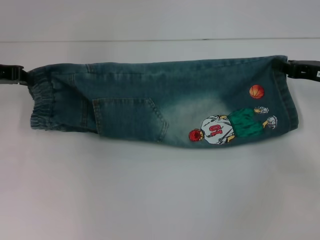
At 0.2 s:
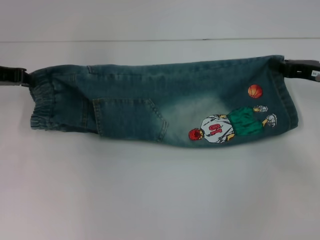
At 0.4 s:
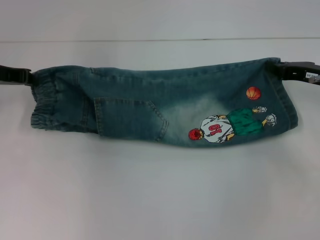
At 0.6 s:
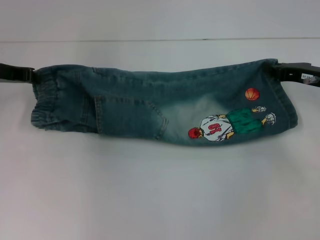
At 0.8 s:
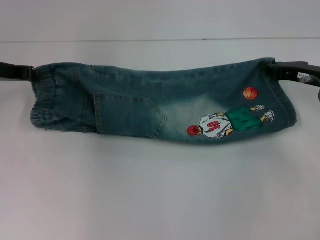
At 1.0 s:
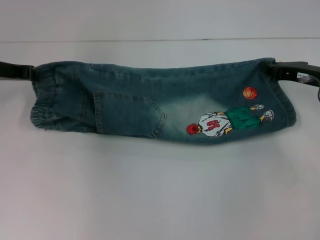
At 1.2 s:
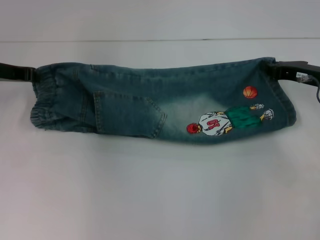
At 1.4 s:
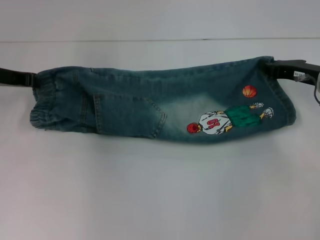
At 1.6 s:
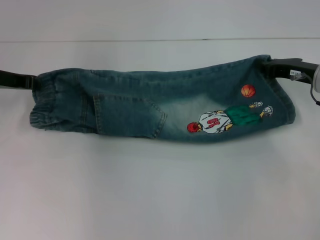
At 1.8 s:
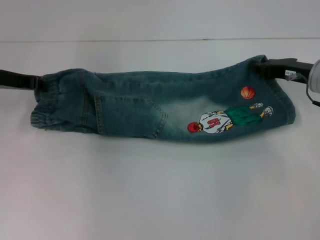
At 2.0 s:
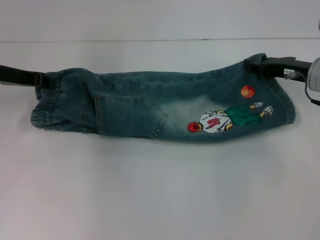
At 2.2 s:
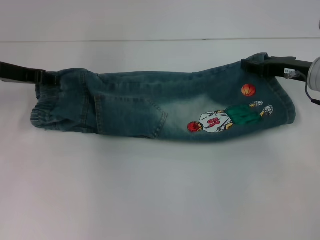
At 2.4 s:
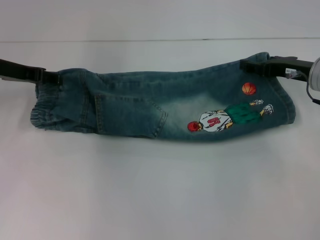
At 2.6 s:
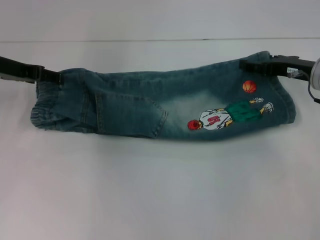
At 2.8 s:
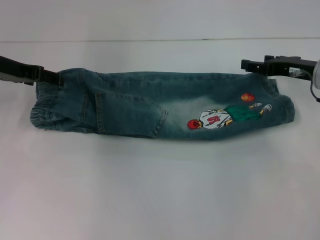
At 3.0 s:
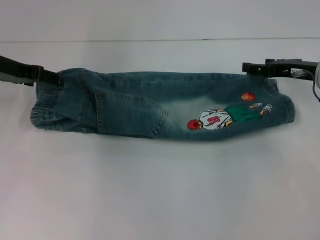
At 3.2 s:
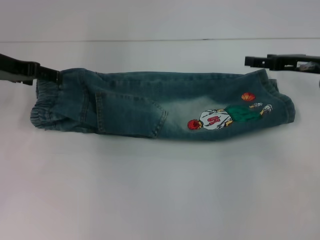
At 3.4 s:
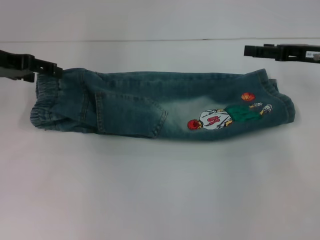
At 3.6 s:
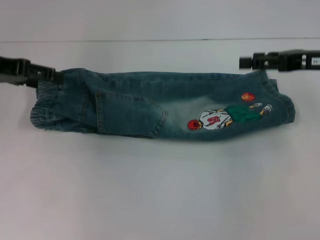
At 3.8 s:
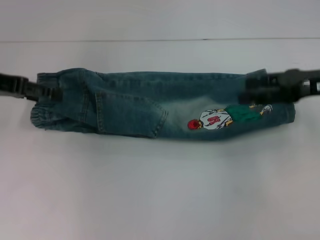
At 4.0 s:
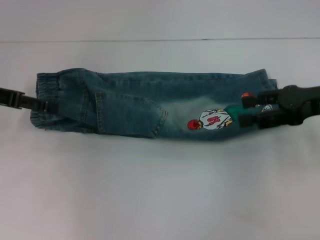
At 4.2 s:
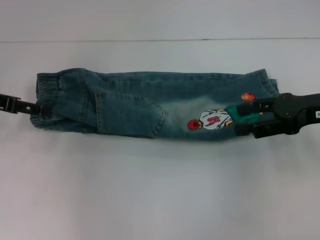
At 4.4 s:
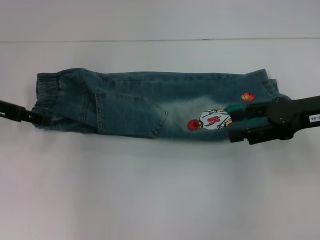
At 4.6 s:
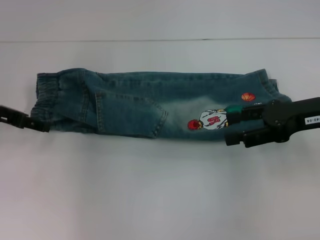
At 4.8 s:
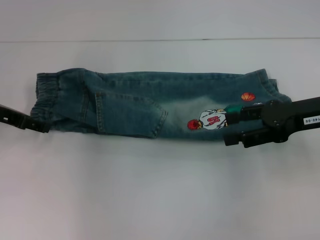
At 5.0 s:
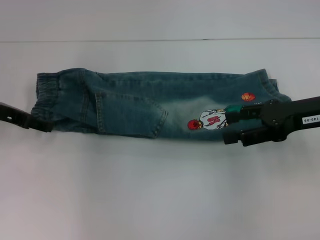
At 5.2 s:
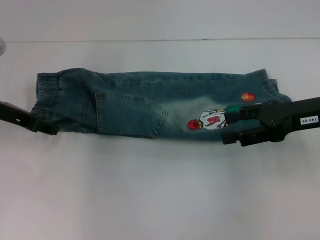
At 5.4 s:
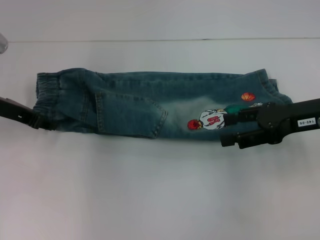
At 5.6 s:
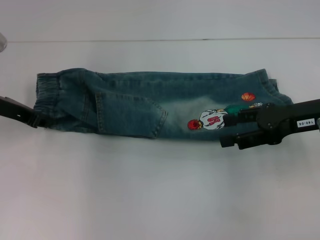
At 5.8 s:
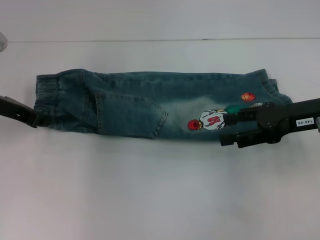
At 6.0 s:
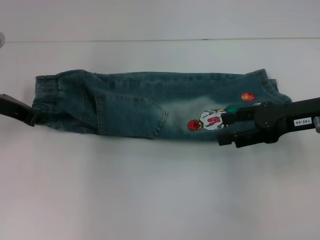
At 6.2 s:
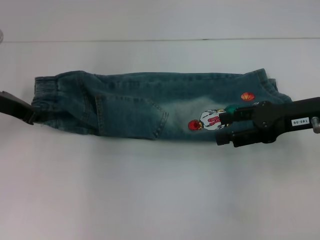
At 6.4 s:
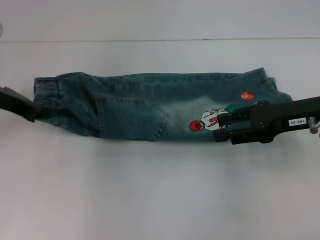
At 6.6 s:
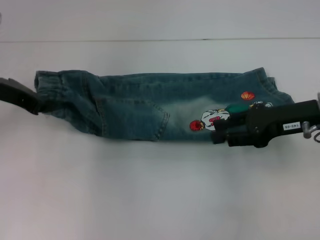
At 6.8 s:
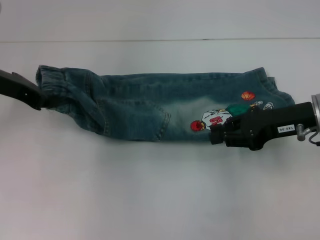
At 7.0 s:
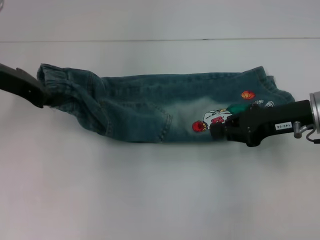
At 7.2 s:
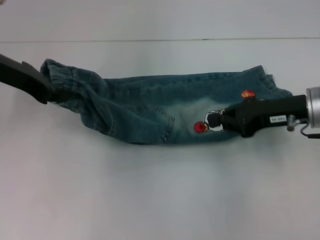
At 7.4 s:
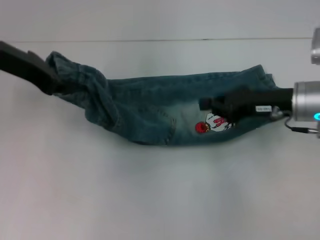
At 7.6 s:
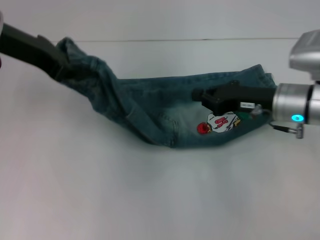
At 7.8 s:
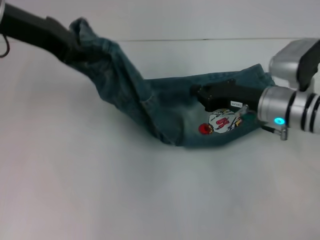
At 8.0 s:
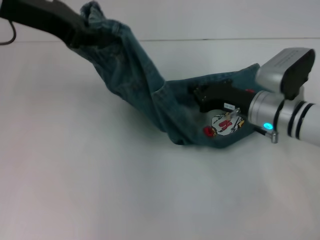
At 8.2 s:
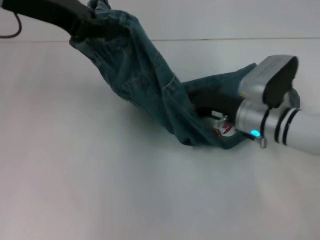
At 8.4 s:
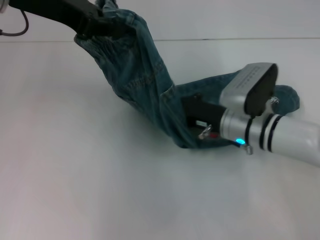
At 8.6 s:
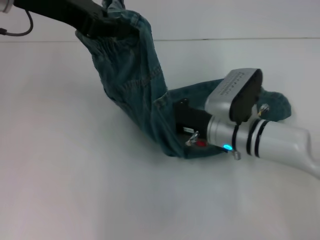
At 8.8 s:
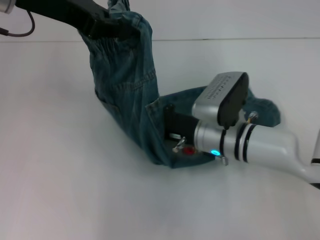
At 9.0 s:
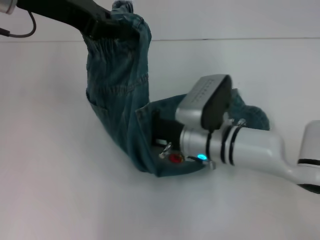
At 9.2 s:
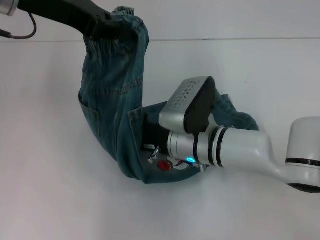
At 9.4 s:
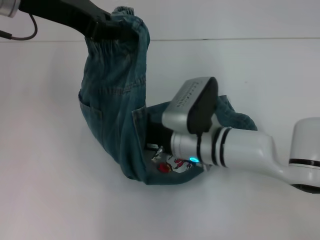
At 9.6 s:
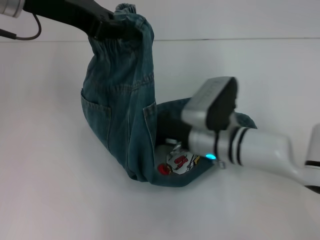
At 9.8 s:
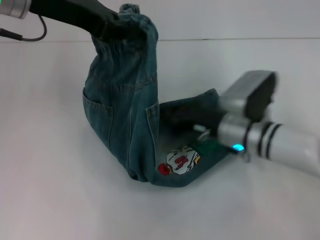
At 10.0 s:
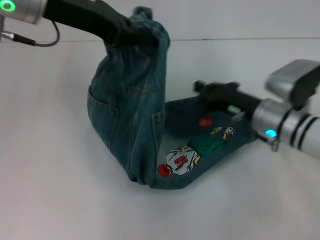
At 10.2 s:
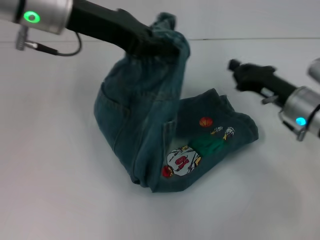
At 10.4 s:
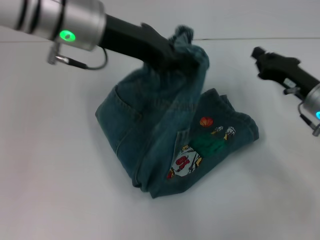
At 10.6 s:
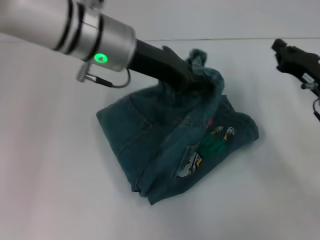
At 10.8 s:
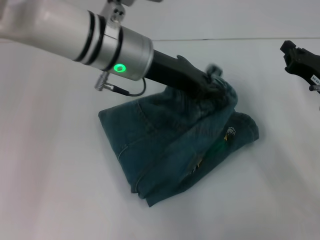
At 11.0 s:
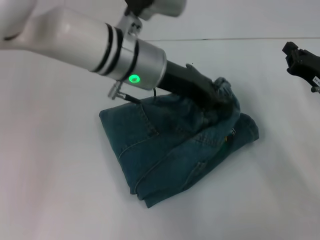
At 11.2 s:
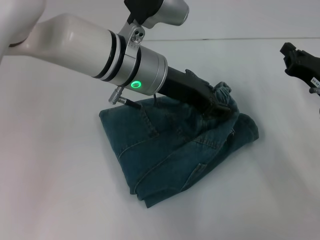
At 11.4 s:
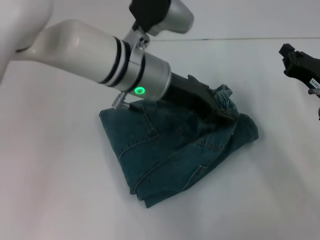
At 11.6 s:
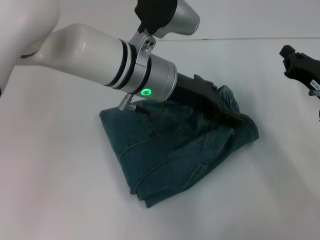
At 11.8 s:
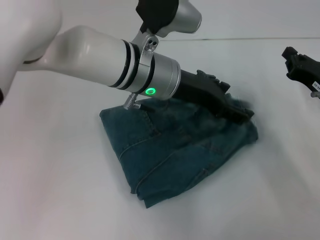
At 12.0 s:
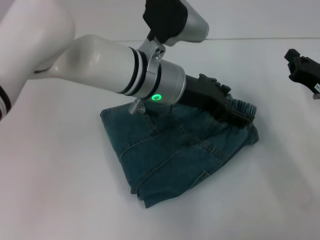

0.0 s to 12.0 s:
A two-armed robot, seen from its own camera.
Step, 0.0 to 2.6 s: Fold upward with your right hand.
Step, 2.8 to 6.2 s: Hold the waistband with your left hand.
Step, 6.4 to 9.2 s: Press the middle of the pants with your right hand.
Step, 9.4 to 12.0 s: Fold to the right with your left hand.
0.0 to 1.6 s: There are only small adjustments of the grippers.
1.6 to 3.0 s: The left gripper opens up, while the right gripper opens its fingers.
3.0 to 4.4 s: The grippers both shift backward by about 5 cm.
4.4 to 6.0 s: The left gripper closes up.
6.0 to 7.6 s: The left gripper travels upward and to the right by approximately 10 cm. Meanwhile the right gripper shifts roughly 5 cm to the left, and closes its fingers.
7.6 to 9.0 s: The left gripper changes place by about 5 cm. Meanwhile the right gripper moves to the left, some 15 cm.
9.0 to 10.4 s: The left gripper travels to the right by some 5 cm, while the right gripper is displaced to the right by some 20 cm.
10.4 to 12.0 s: The left gripper is displaced to the right and downward by about 15 cm, and opens up.

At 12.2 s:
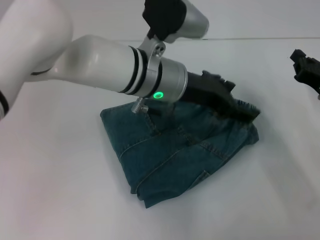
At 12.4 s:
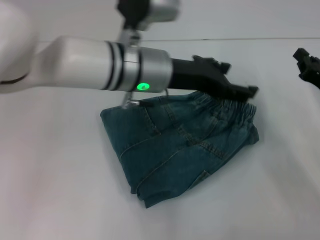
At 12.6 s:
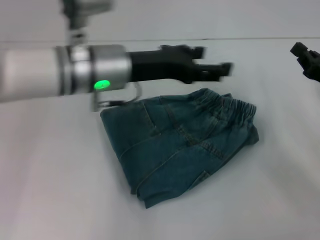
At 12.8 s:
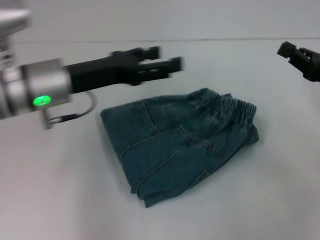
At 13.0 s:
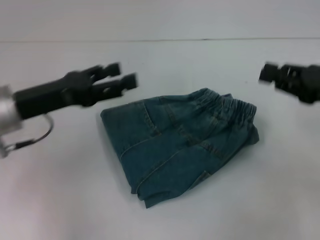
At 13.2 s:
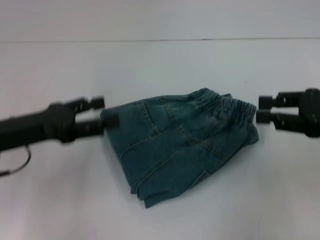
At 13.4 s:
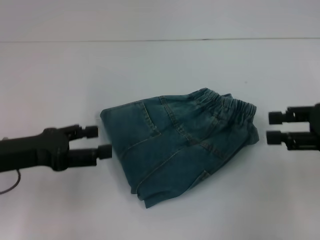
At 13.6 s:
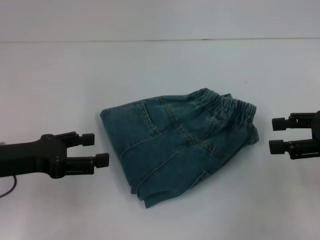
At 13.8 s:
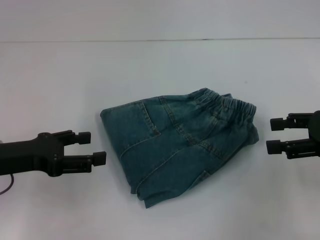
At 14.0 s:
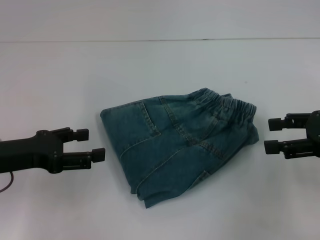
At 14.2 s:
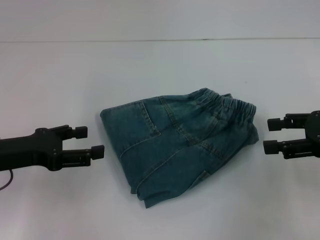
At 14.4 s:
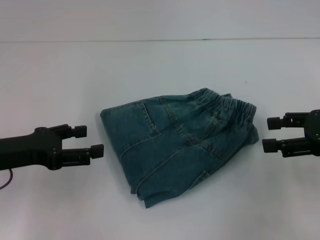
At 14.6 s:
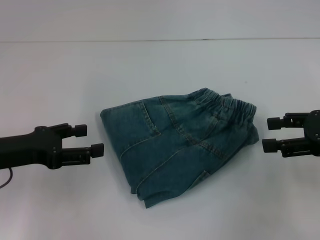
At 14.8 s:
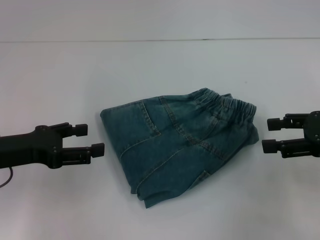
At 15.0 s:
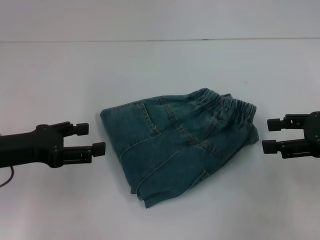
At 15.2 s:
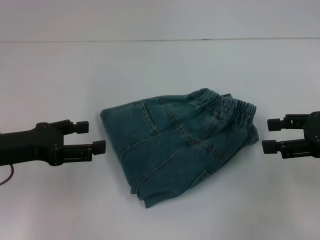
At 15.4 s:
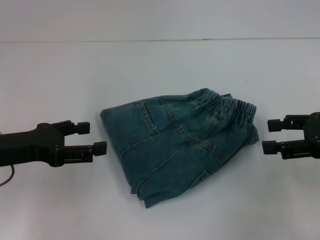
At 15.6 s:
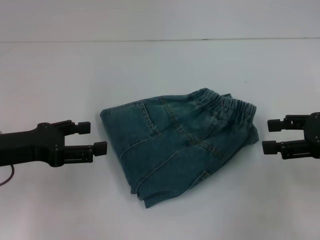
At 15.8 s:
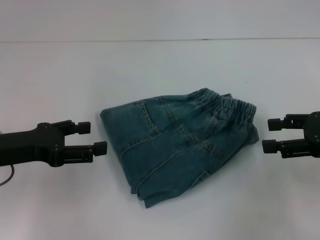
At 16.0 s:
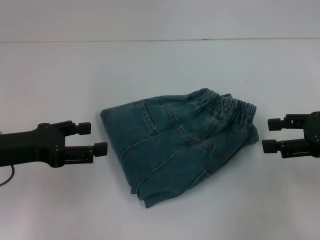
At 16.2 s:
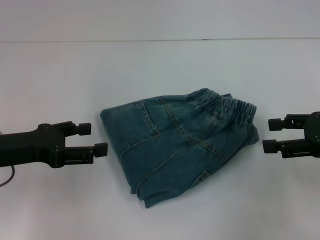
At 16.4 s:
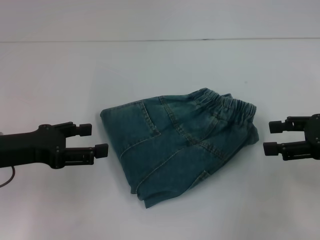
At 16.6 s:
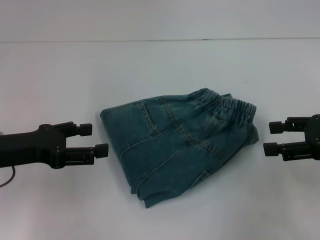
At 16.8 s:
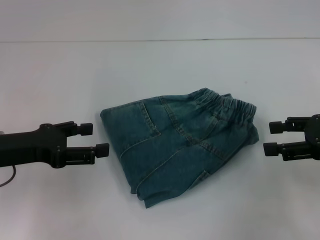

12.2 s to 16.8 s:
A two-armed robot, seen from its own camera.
12.2 to 13.8 s: The left gripper travels to the left and backward by approximately 25 cm. The right gripper shifts roughly 10 cm upward, and opens up.
13.8 to 16.8 s: The two grippers keep their place.
